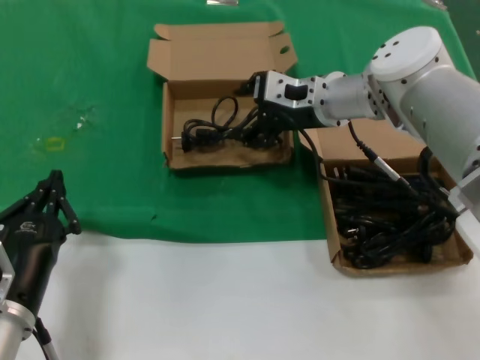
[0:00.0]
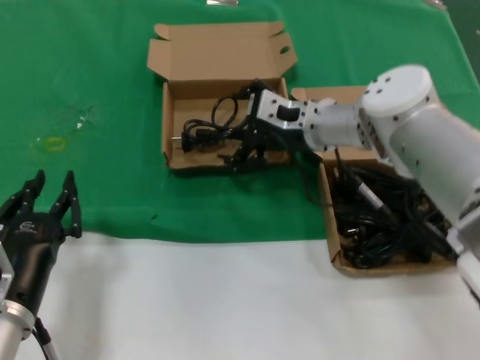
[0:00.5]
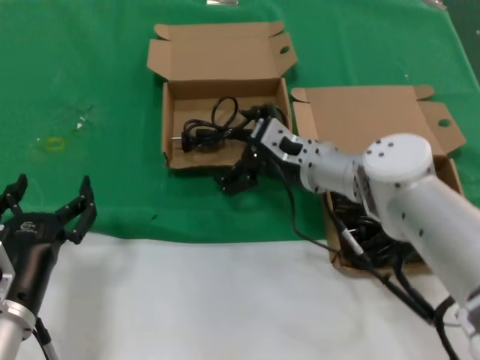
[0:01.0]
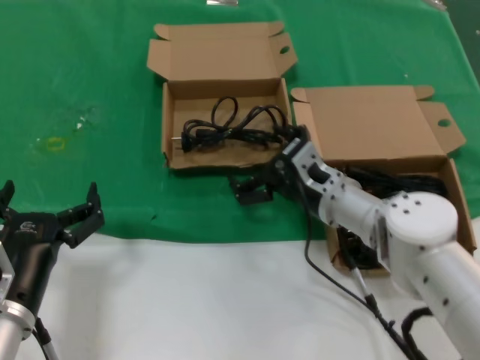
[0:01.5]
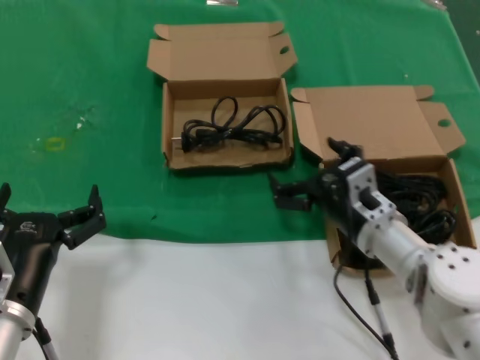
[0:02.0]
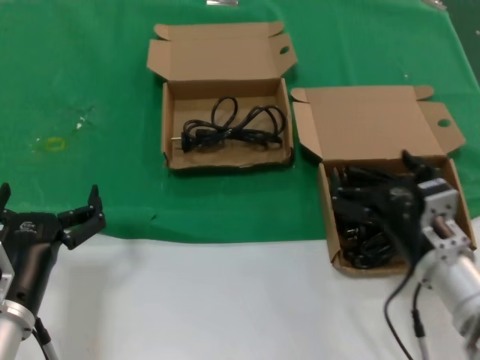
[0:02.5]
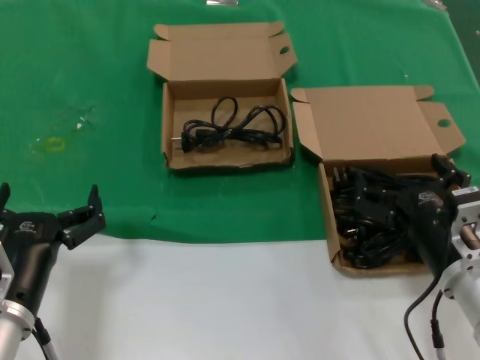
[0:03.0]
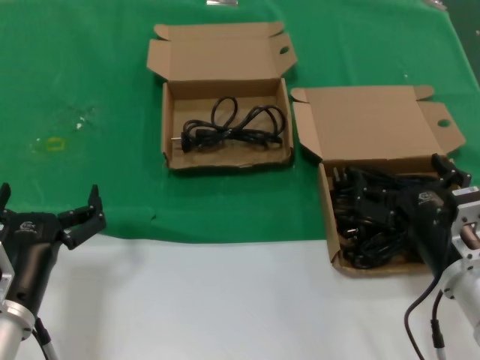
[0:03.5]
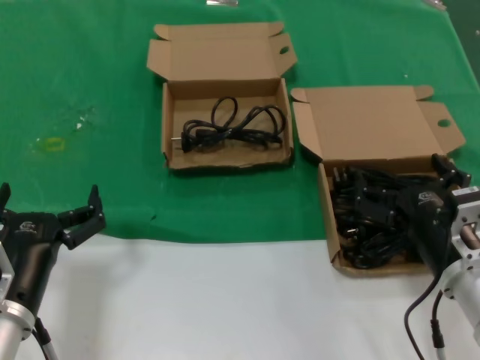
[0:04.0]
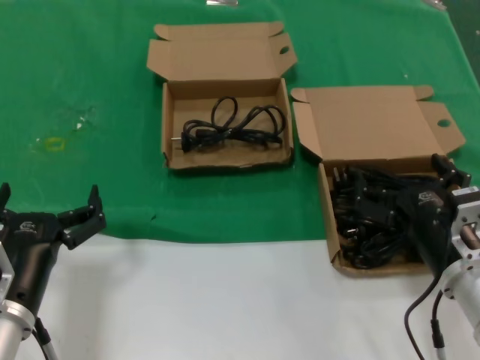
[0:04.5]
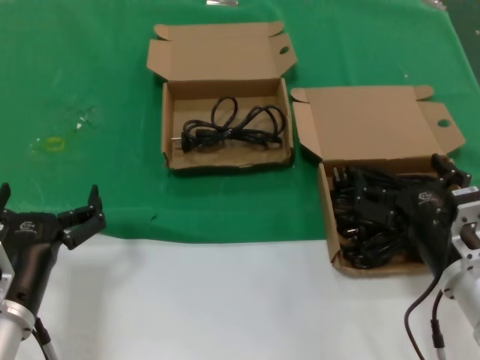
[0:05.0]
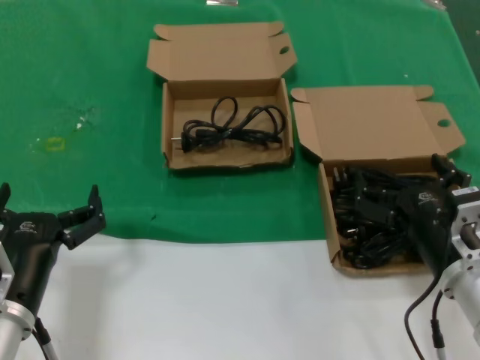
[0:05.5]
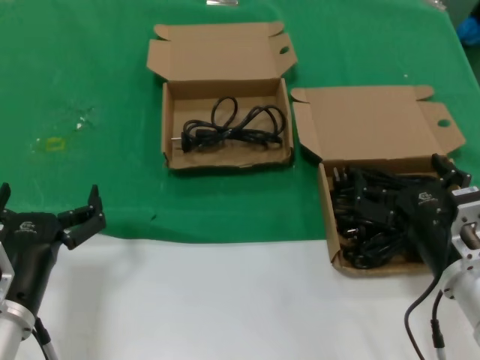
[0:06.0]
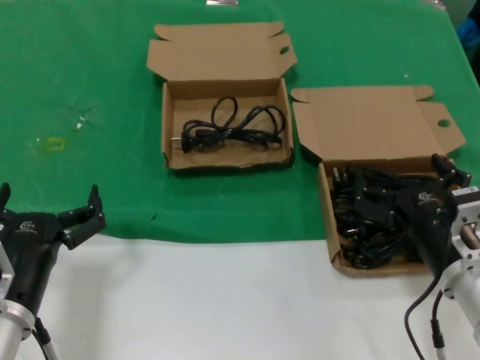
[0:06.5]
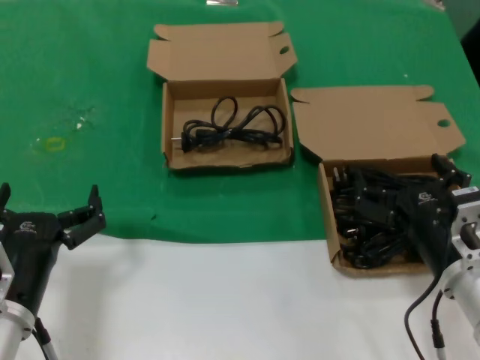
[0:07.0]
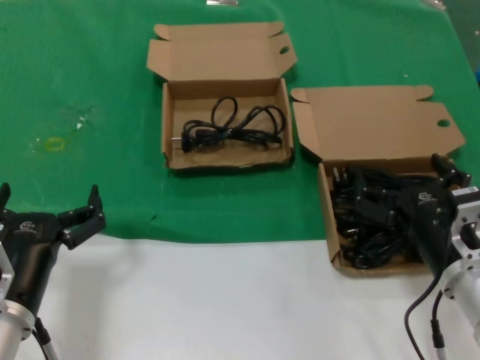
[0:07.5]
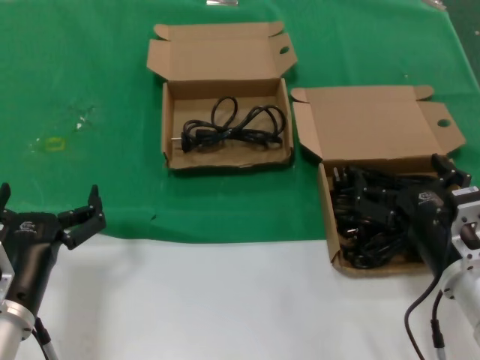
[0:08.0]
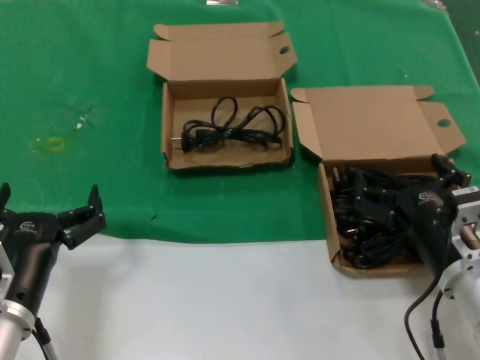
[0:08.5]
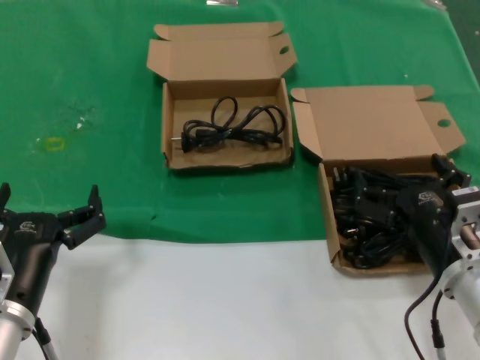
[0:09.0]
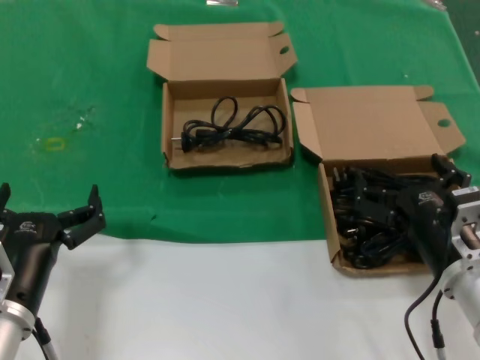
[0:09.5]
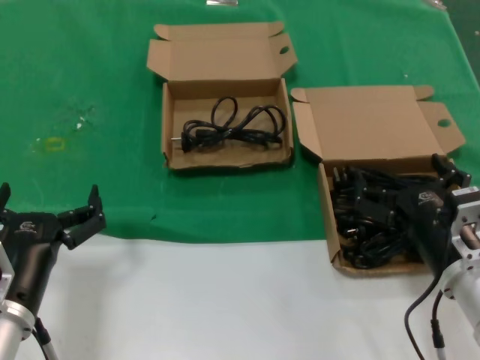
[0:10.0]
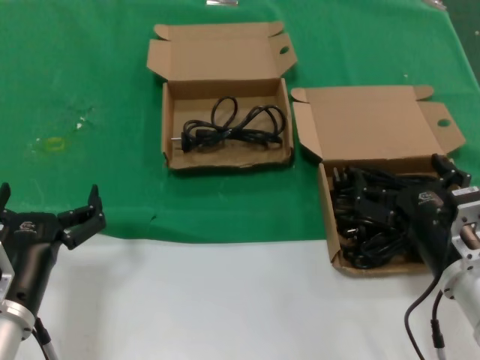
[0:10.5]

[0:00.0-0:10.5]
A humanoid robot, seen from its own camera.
Task of the whole recording: take the parts from the box containing them and put them into an empty box.
0:00.0 to 0:02.0: The right hand moves downward and backward, approximately 20 cm.
0:02.0 to 0:04.0: The right hand shifts roughly 10 cm backward and to the right.
0:04.0 to 0:10.5: Both hands stay about where they are.
